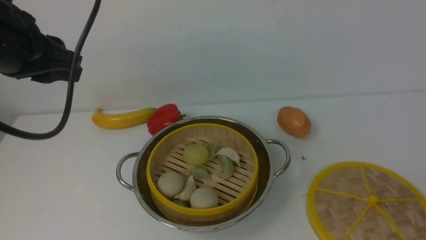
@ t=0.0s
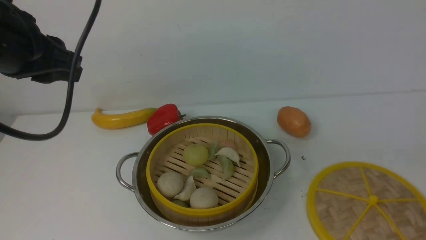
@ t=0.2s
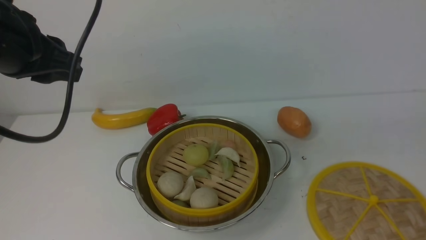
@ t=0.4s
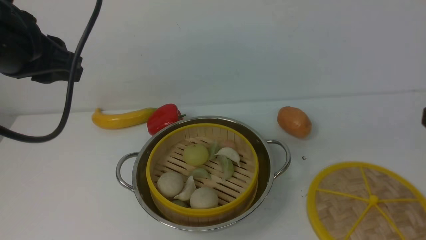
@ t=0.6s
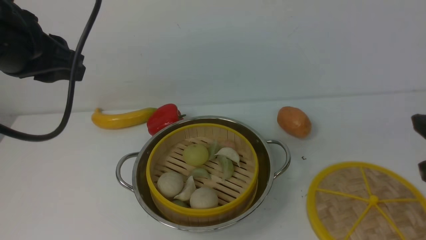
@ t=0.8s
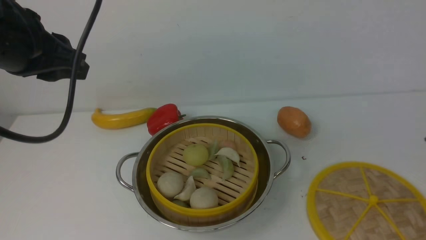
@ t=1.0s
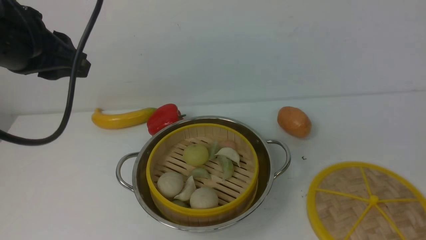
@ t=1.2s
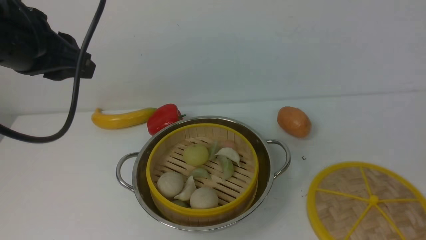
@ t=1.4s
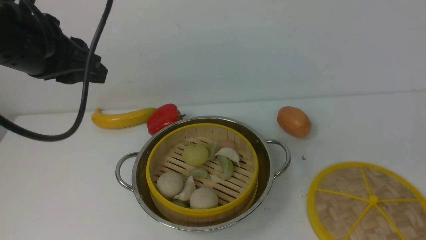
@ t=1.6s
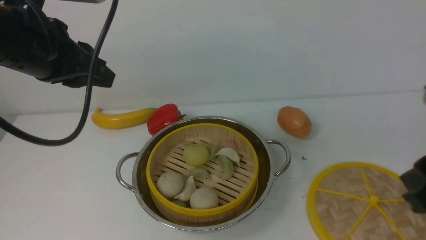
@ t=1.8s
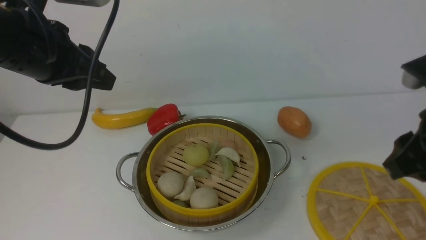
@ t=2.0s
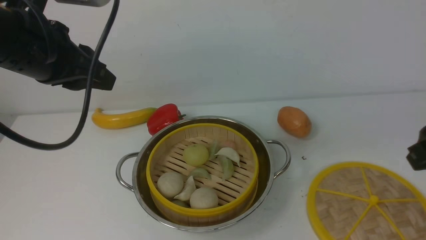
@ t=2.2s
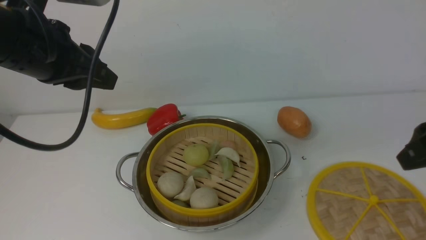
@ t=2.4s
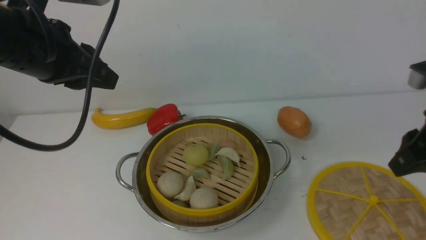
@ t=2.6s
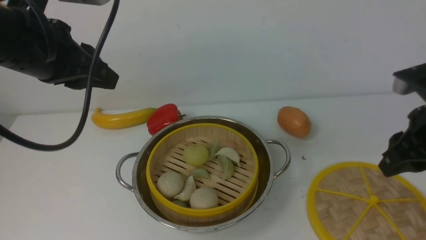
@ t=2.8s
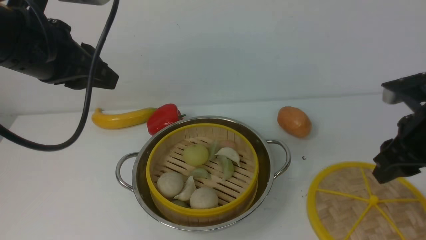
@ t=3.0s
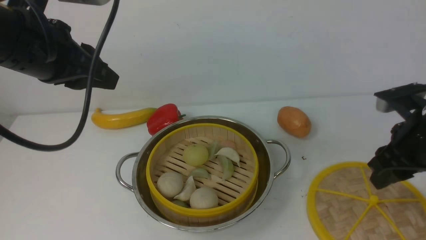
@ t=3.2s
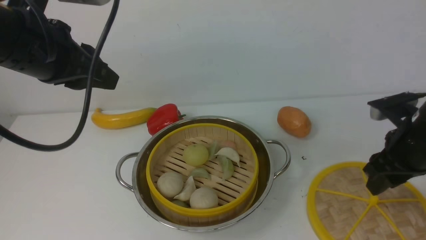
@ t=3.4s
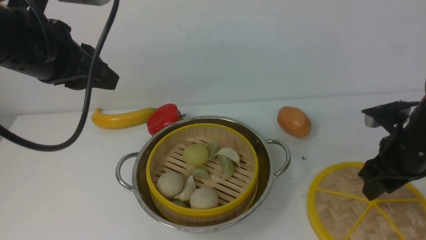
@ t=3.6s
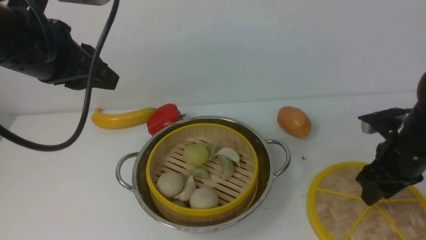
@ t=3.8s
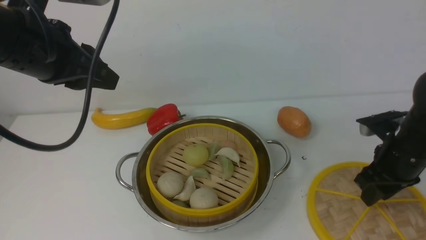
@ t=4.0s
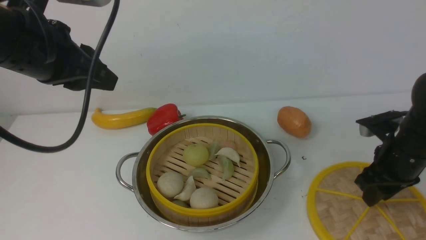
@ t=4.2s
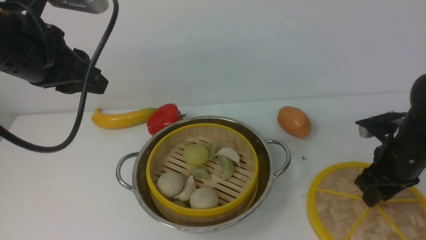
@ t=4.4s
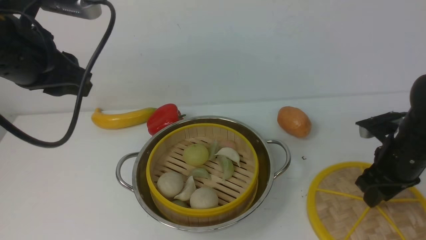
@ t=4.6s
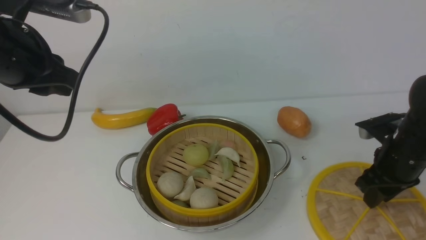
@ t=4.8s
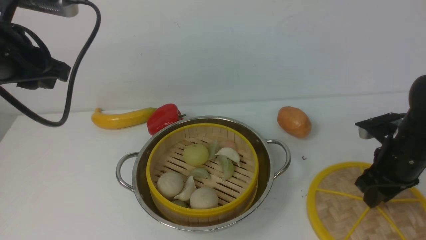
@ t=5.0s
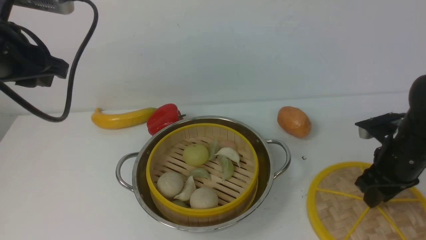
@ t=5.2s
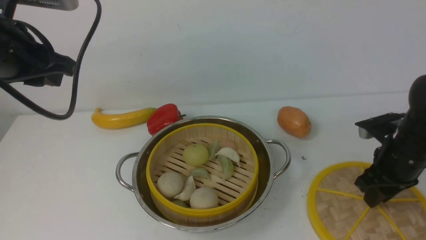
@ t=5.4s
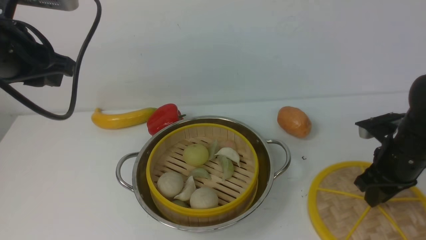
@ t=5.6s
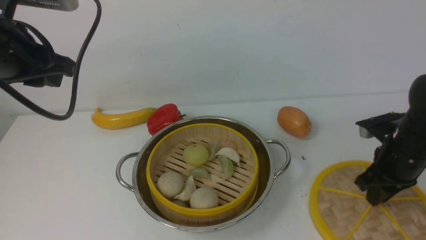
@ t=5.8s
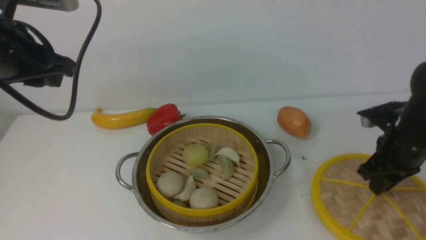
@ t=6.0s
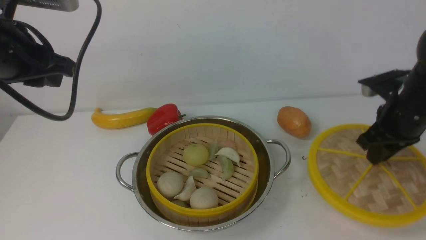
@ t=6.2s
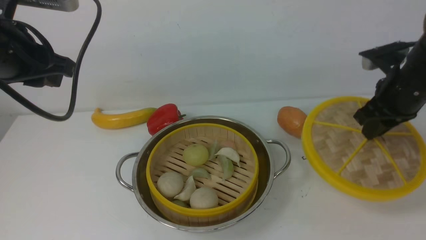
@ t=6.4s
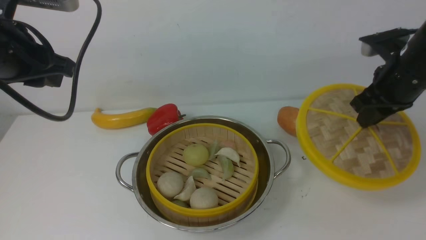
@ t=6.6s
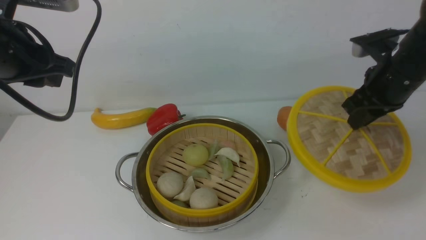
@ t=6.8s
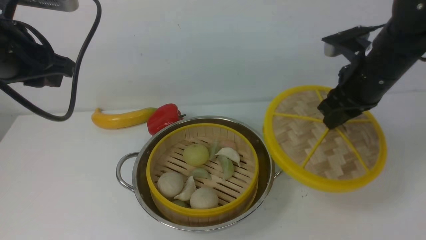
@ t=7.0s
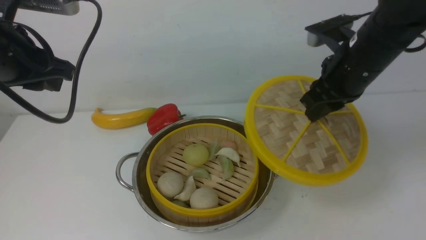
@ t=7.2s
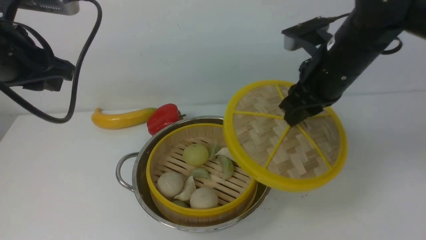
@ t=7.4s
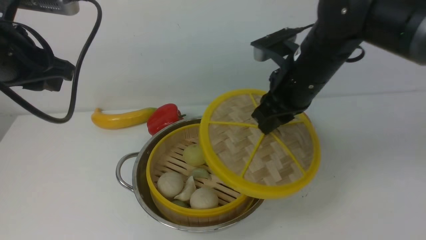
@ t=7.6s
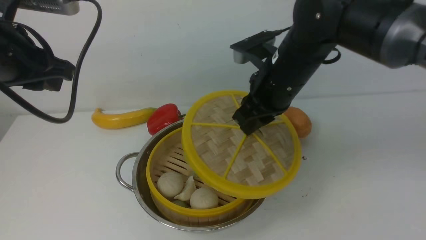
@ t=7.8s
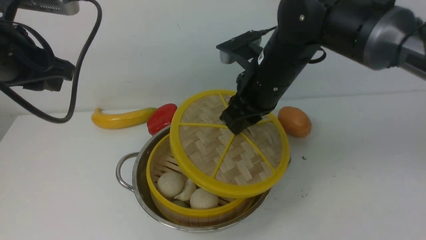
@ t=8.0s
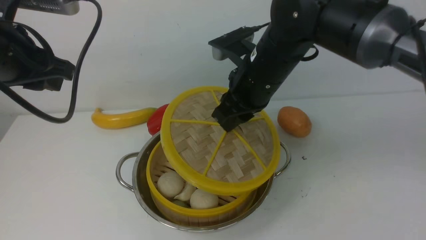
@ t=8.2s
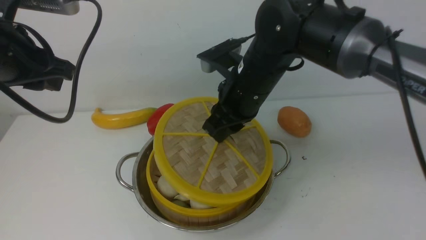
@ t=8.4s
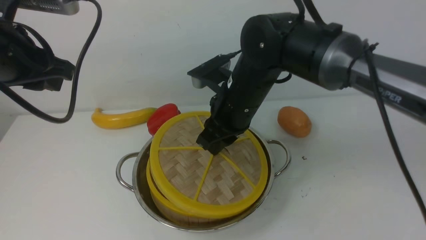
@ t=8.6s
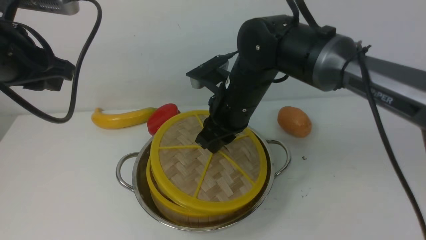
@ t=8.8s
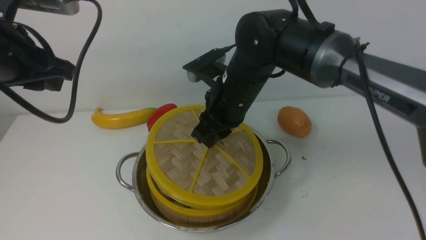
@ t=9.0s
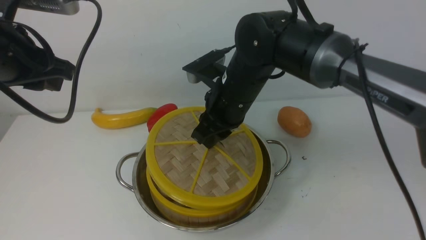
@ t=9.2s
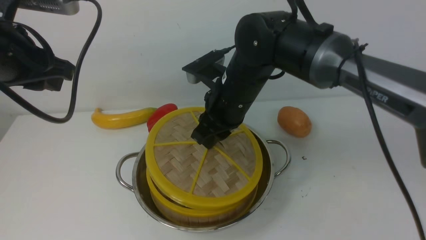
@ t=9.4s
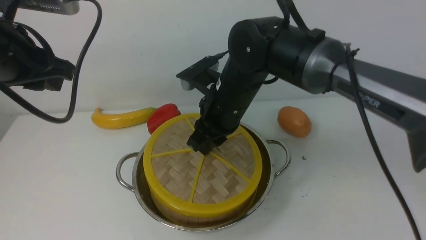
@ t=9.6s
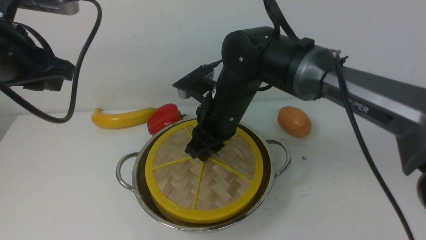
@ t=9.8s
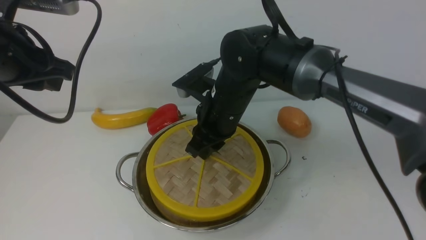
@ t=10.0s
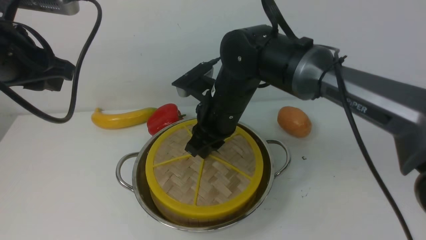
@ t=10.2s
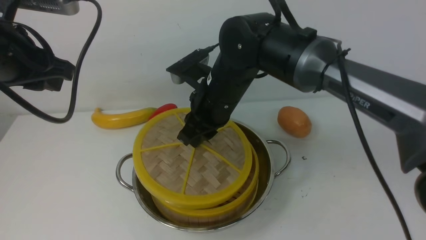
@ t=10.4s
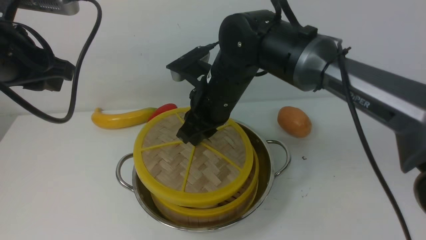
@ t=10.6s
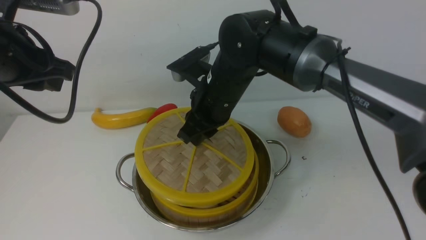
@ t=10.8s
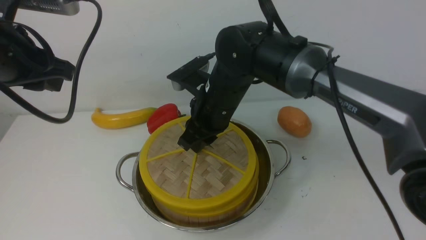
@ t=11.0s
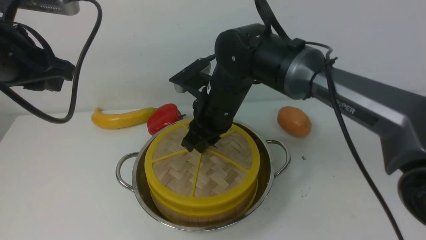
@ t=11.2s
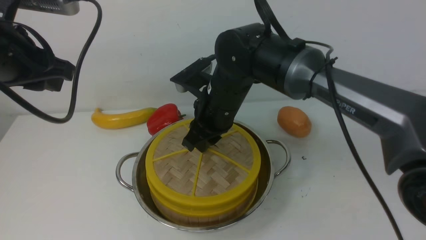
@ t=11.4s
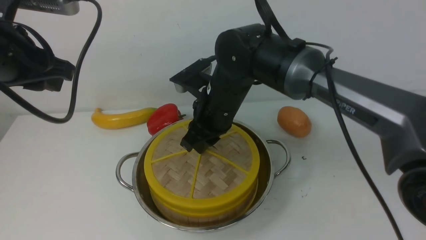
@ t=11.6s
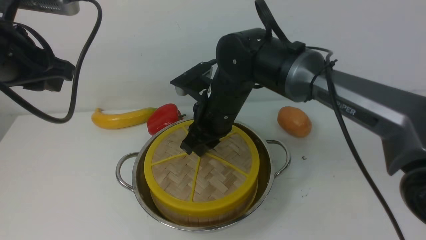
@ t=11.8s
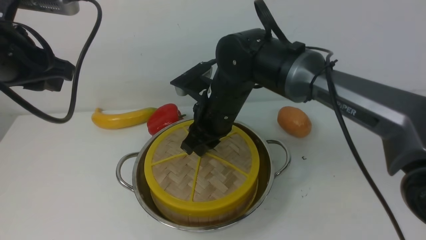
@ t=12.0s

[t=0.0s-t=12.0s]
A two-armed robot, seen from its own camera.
Task of the whole recording: place the steamer in the pot on the white table, and put the lid on the steamer.
Step, t=0.0s to t=6.4s: use the right arm to lift the lid of the steamer.
t=1.6s to t=3.0s: The right gripper heads forward and downward, covering roughly 15 cm.
t=3.0s to t=4.4s: The right gripper heads downward, covering approximately 10 cm.
t=4.4s to t=6.0s: The right gripper closes up.
t=6.0s to t=7.6s: The right gripper heads to the left and upward, covering roughly 20 cm.
t=7.6s to t=9.0s: The right gripper moves to the left, about 10 cm.
t=9.0s to t=12.0s: The grippers make only small movements.

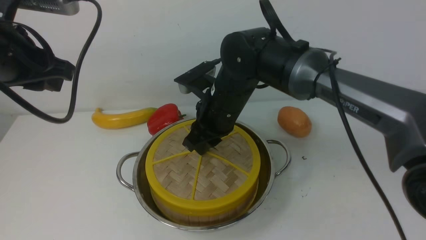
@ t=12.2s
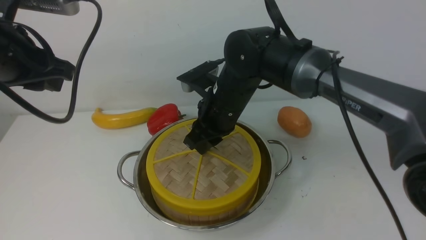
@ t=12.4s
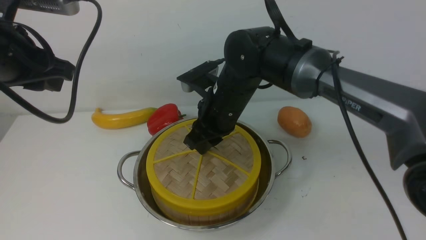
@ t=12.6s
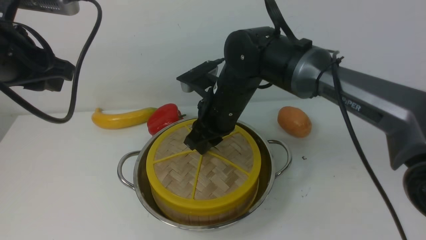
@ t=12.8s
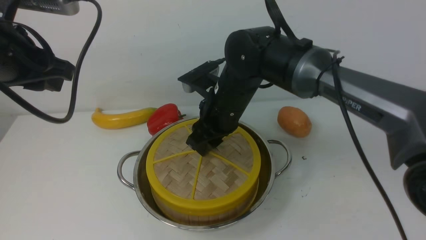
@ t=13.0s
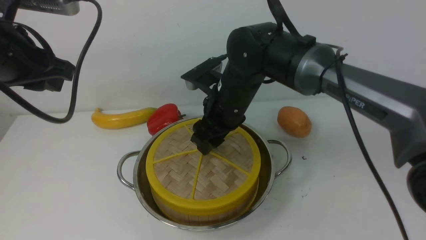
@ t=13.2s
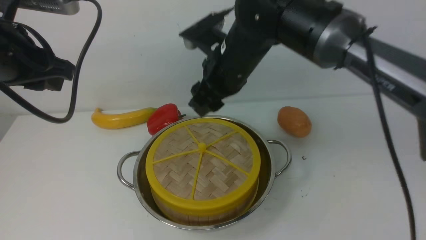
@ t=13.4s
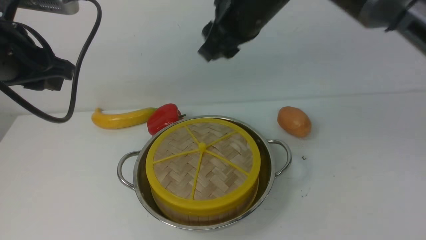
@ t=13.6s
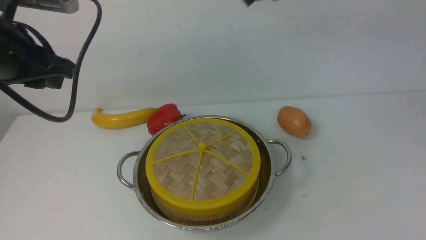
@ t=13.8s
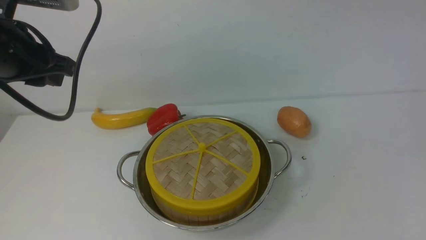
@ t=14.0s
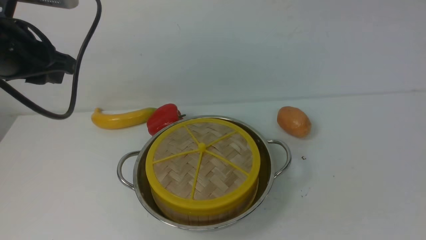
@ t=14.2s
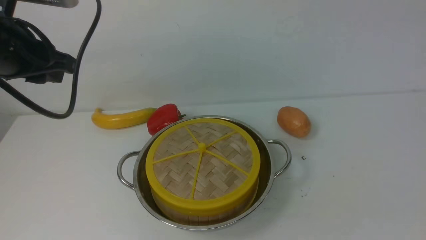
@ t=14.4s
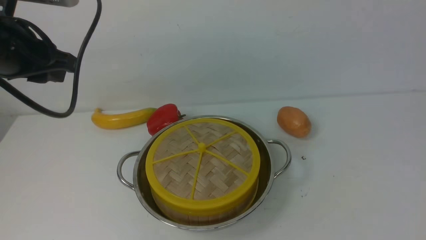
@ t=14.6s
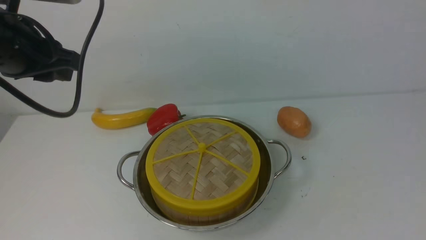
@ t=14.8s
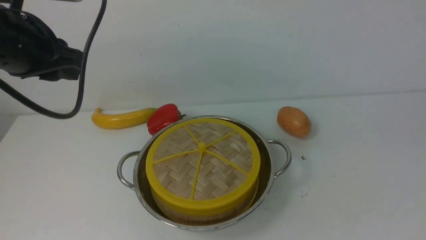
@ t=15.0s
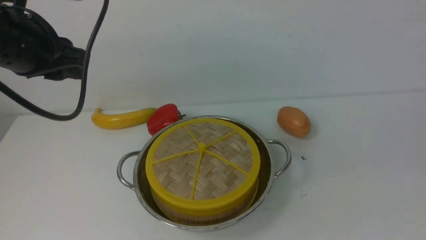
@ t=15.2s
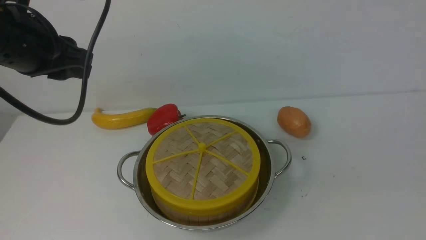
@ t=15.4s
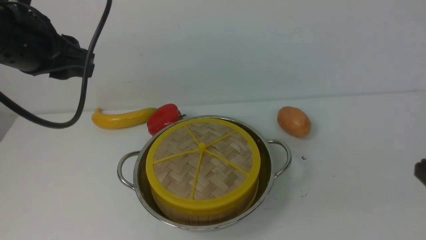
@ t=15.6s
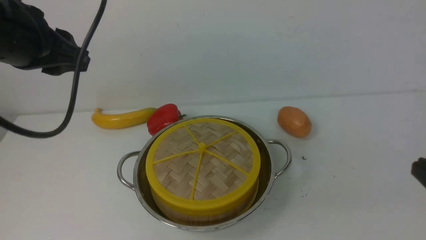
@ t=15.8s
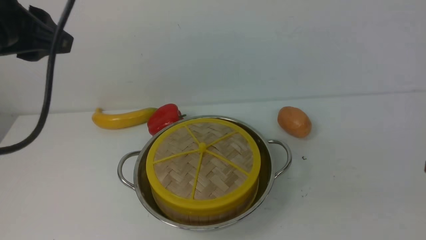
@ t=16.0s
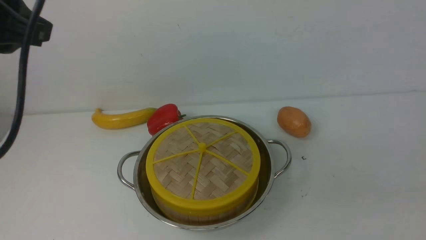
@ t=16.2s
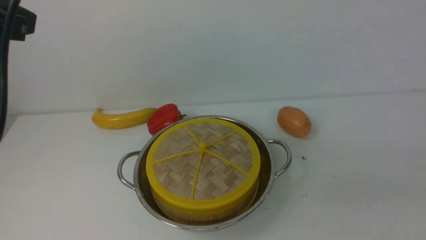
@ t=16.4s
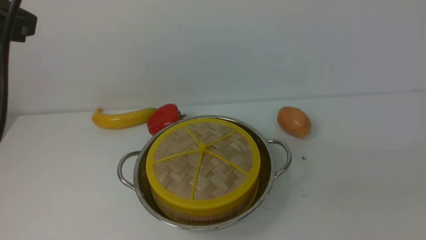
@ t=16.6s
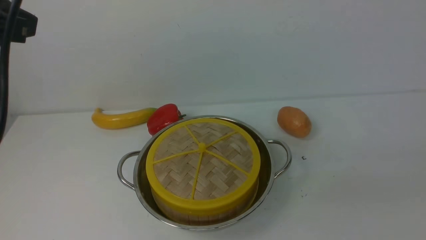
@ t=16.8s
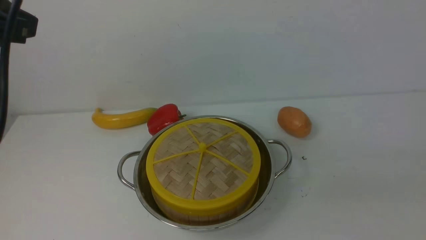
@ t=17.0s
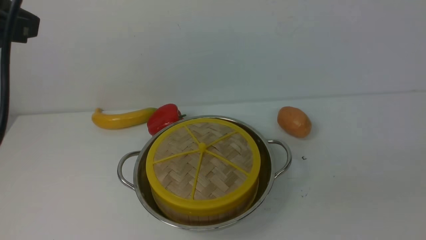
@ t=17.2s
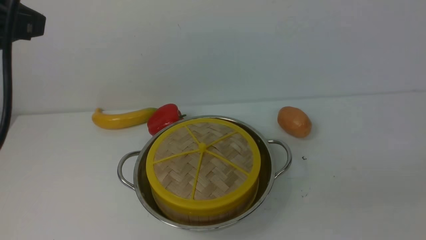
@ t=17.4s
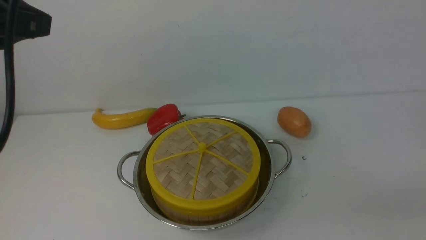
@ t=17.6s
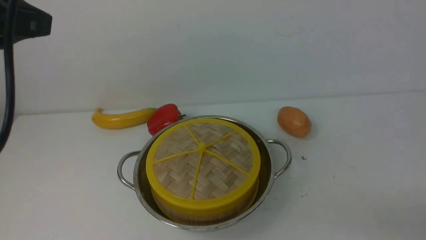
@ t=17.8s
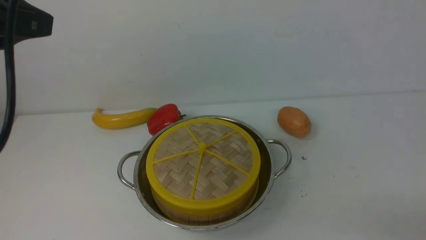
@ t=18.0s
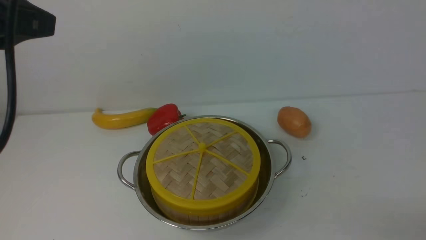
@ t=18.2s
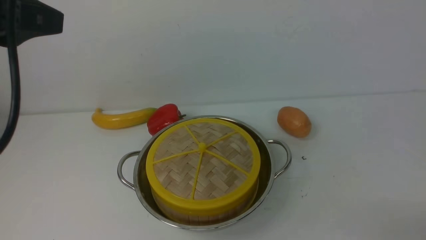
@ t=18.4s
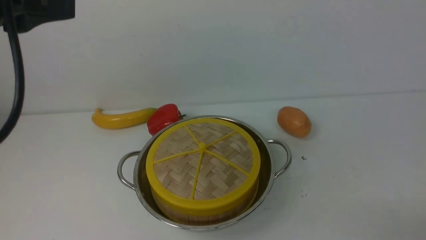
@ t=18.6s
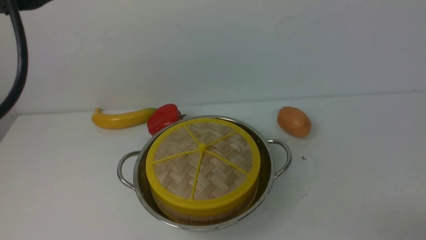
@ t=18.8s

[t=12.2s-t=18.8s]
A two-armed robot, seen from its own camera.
Task of the whole recording: place the steamer in the pot on the white table, and put the lid on the steamer.
t=12.2s to t=13.8s: The right gripper heads upward and to the right, covering roughly 25 cm, and opens, then closes once more.
t=15.4s to t=17.2s: The left gripper moves backward and upward, roughly 10 cm.
